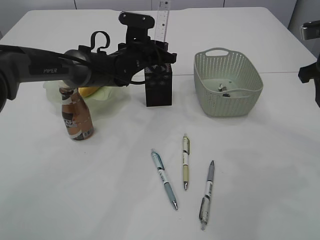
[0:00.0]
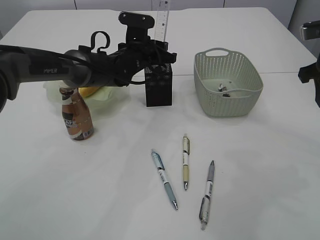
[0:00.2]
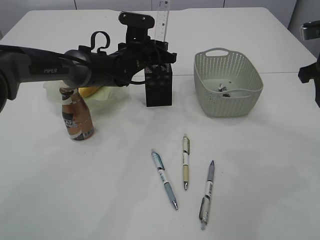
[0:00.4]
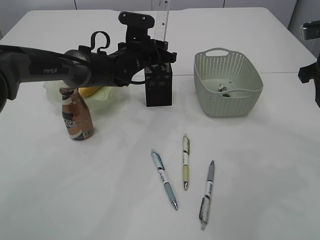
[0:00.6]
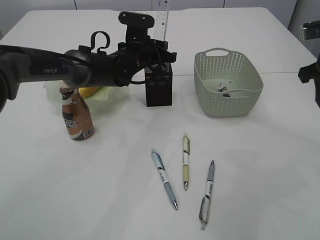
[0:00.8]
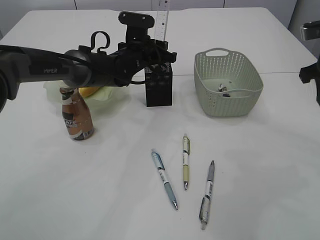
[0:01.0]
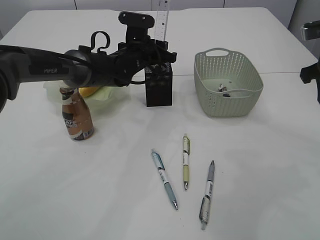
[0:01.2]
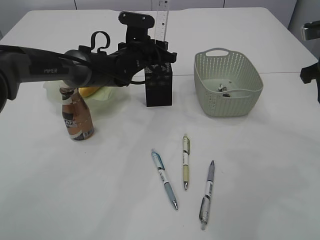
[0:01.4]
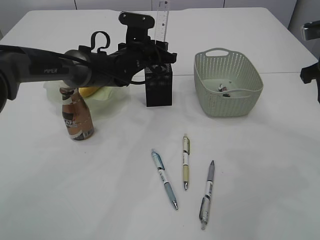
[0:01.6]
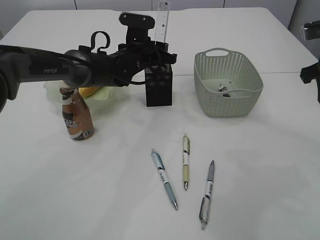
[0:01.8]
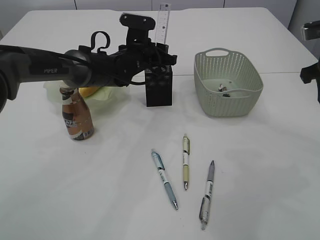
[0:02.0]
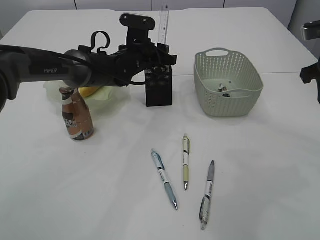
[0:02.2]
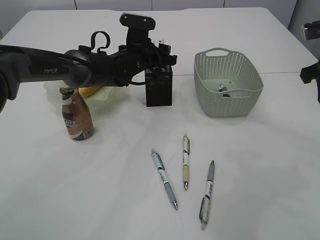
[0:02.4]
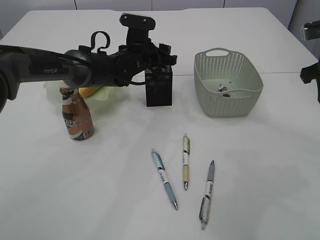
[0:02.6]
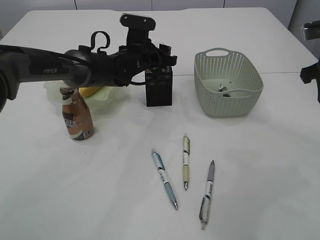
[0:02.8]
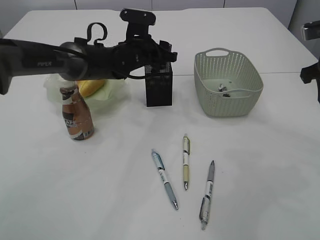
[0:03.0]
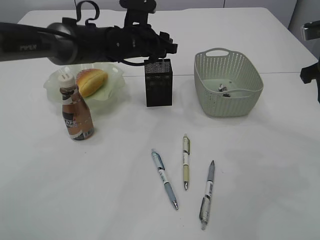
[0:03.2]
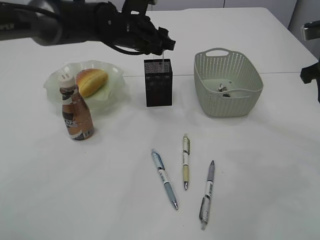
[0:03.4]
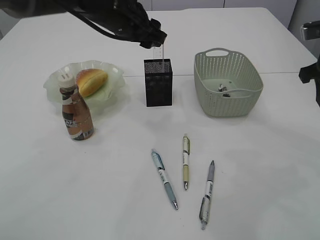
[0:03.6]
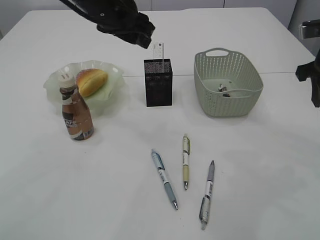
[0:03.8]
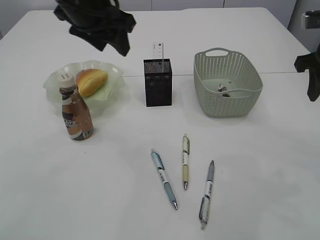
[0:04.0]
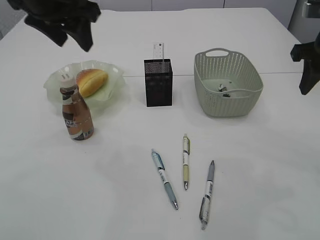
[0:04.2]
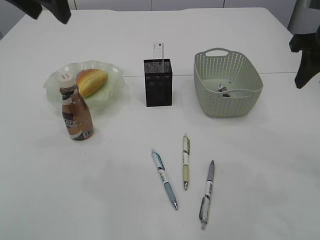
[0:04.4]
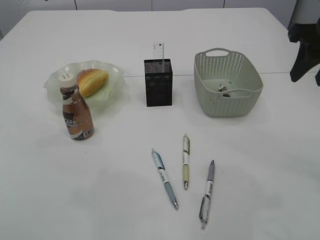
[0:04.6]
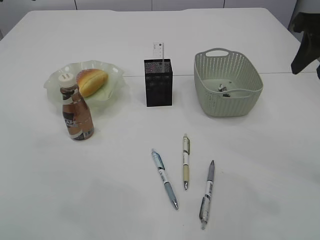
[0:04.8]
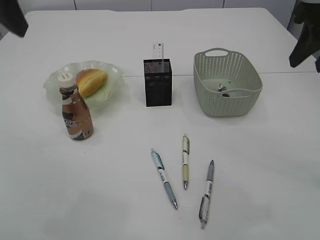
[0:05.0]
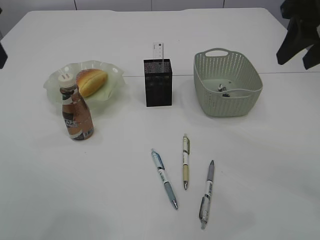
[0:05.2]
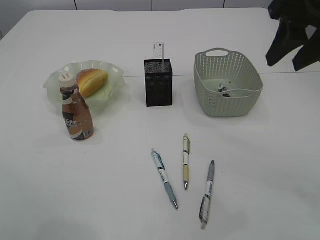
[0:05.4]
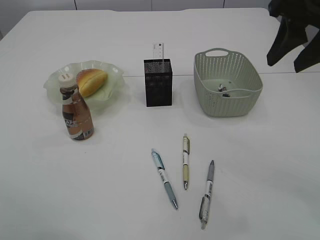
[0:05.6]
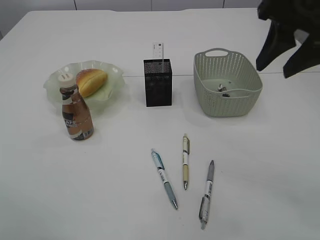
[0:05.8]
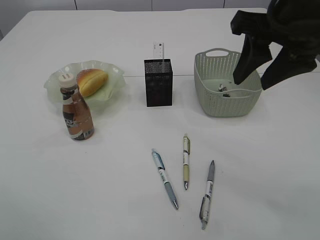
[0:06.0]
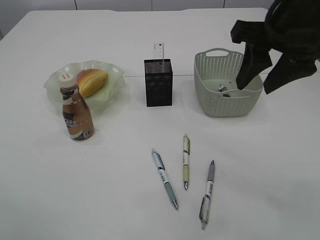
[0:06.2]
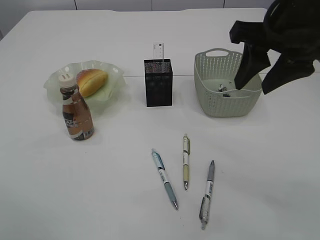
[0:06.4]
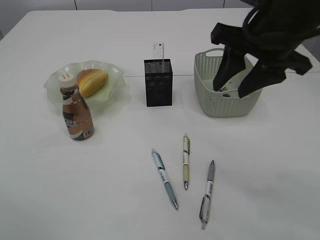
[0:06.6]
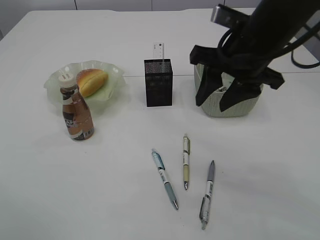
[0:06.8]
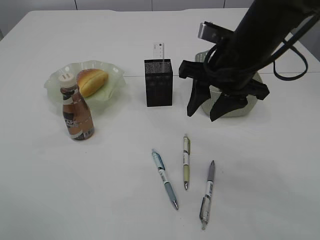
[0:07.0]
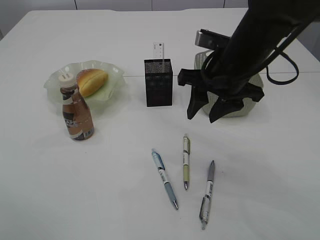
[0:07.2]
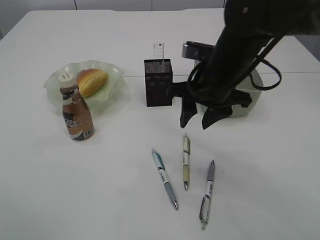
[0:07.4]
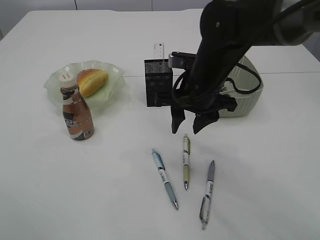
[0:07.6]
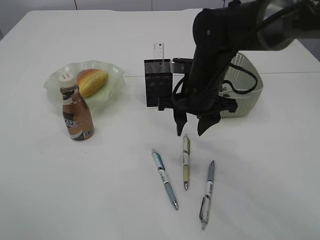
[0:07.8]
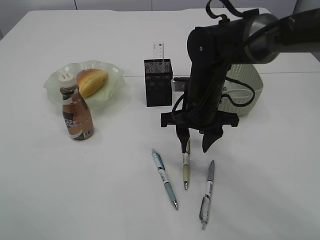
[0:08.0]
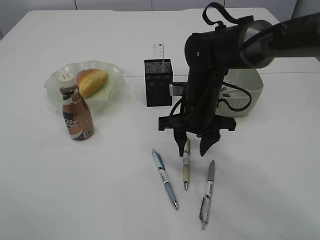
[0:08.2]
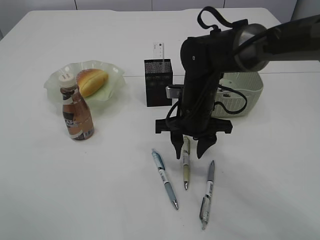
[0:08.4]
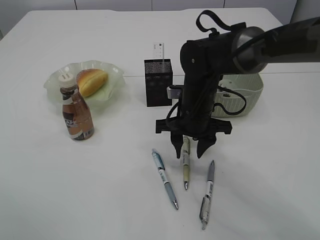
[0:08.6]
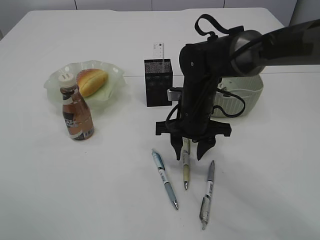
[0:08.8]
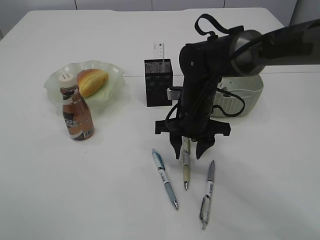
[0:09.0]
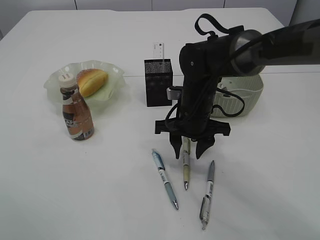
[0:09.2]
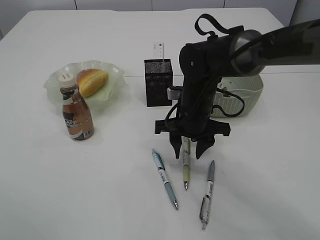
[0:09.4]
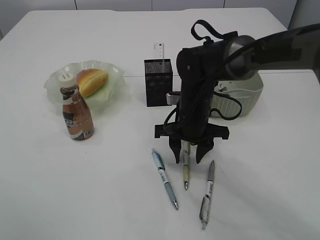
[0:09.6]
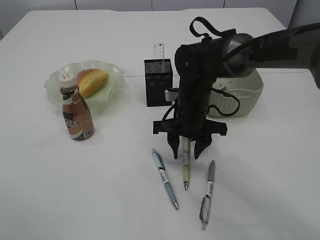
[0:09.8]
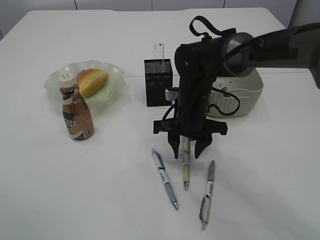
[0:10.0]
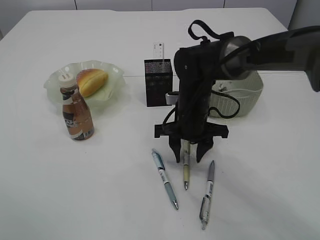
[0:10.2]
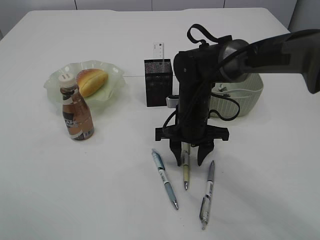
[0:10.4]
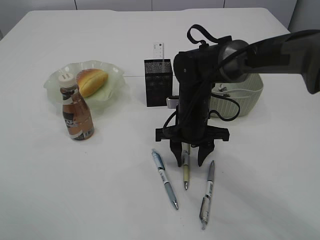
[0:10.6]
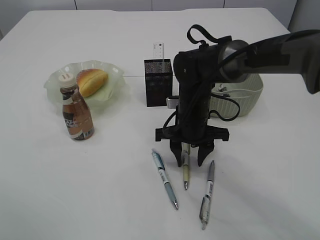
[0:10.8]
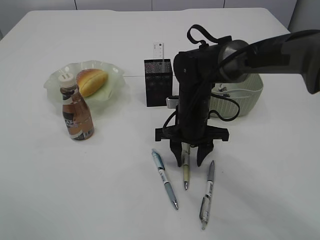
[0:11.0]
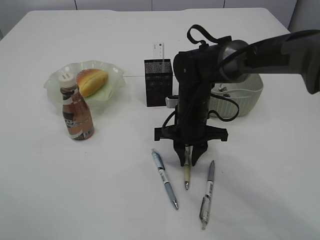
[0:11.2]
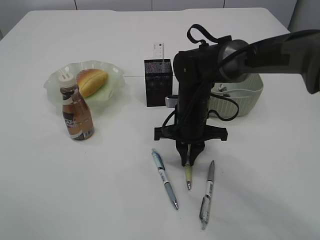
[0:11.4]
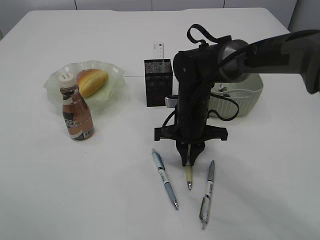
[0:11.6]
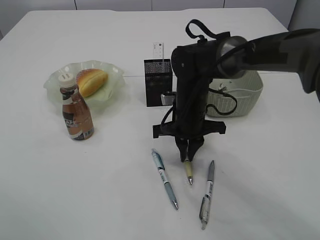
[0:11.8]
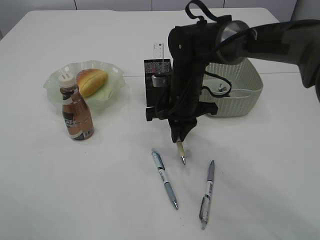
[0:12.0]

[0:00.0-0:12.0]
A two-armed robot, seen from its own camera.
Step, 0:00.0 to 0:03.6: Place the ruler into the pen holder.
0:00.0 to 0:03.0: The two grippers keep their place.
0:03.0 to 0:04.4: The right gripper shifts by some 5 cm. Meanwhile the left gripper shifts about 30 cm upward, backward and to the left.
0:04.4 to 0:06.0: The left gripper moves backward and to the left, roughly 15 cm. The right gripper moves to the left, approximately 10 cm.
0:06.0 to 0:07.6: The right gripper travels downward, to the left and forward by about 20 cm.
0:07.6 to 0:09.0: The right gripper goes about 5 cm downward.
0:09.0 to 0:10.4: The grippers move only a little.
0:10.4 to 0:12.0: The right gripper closes up.

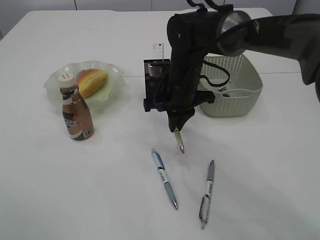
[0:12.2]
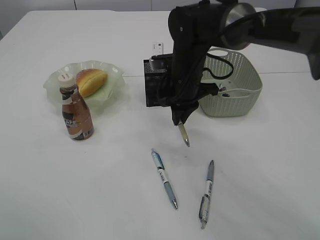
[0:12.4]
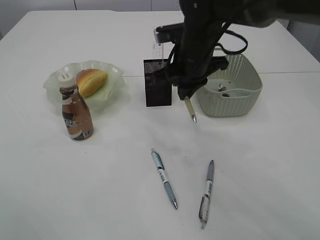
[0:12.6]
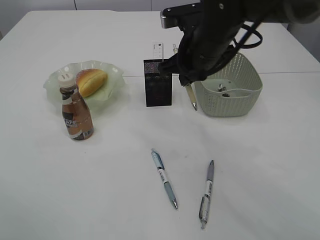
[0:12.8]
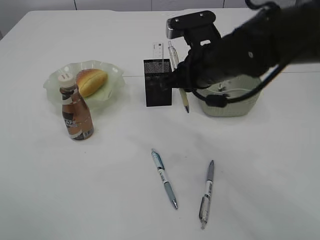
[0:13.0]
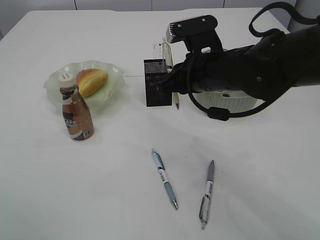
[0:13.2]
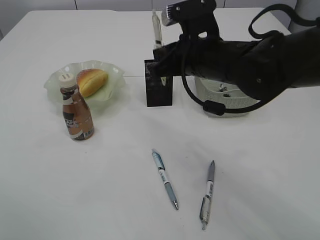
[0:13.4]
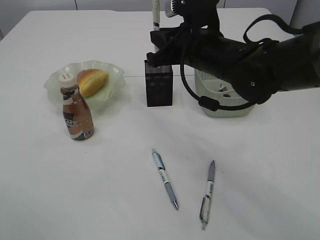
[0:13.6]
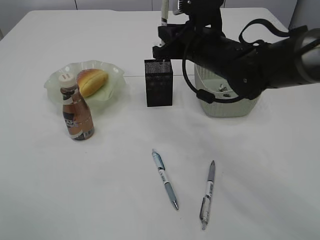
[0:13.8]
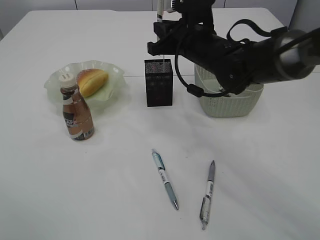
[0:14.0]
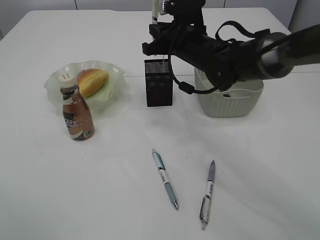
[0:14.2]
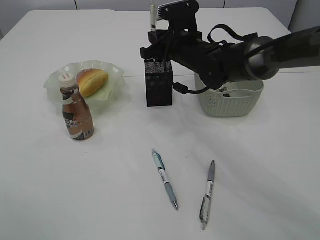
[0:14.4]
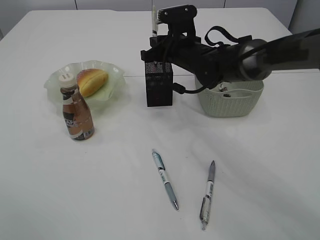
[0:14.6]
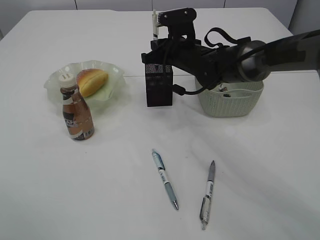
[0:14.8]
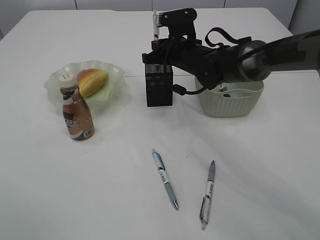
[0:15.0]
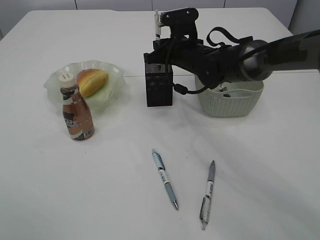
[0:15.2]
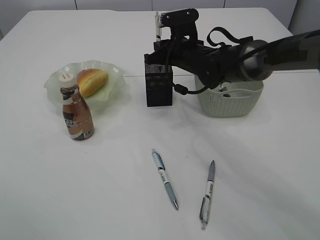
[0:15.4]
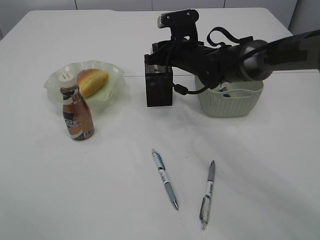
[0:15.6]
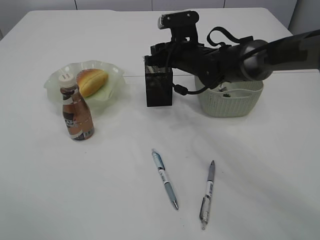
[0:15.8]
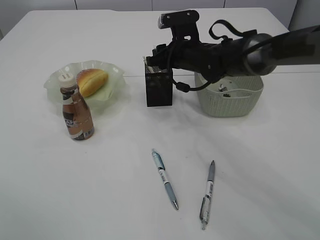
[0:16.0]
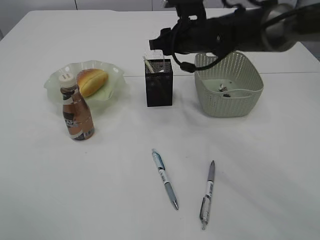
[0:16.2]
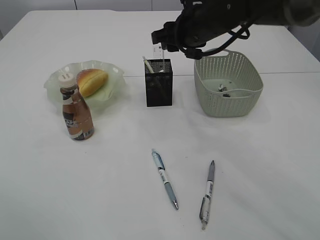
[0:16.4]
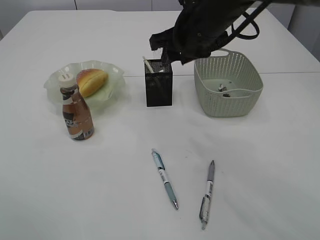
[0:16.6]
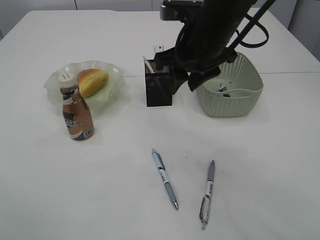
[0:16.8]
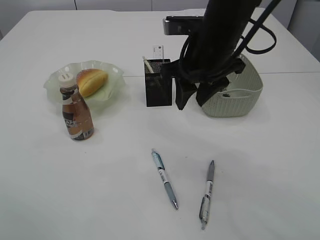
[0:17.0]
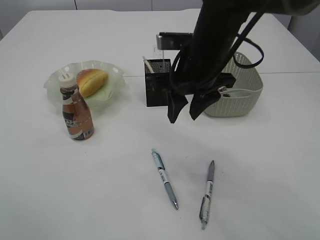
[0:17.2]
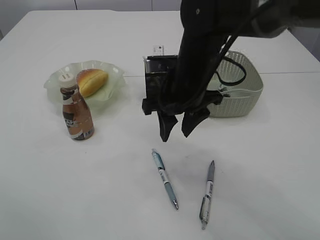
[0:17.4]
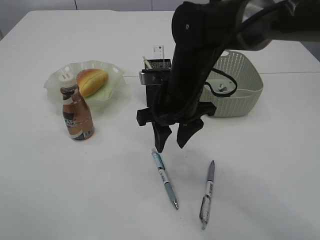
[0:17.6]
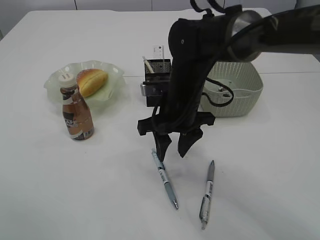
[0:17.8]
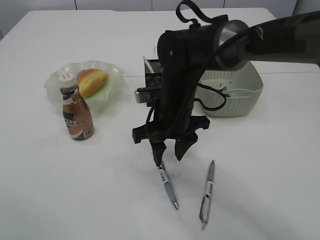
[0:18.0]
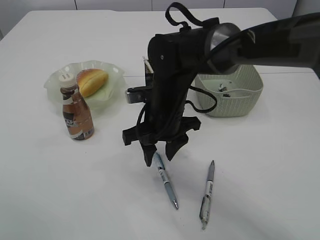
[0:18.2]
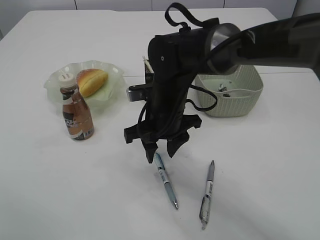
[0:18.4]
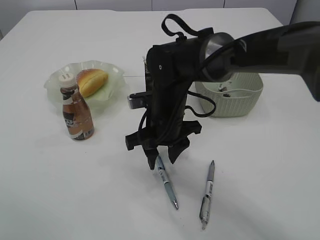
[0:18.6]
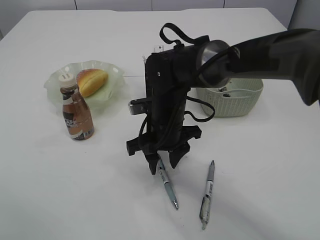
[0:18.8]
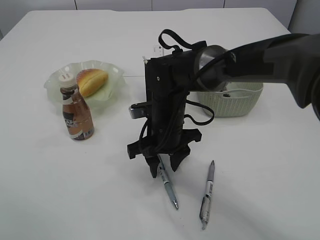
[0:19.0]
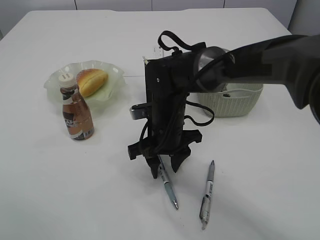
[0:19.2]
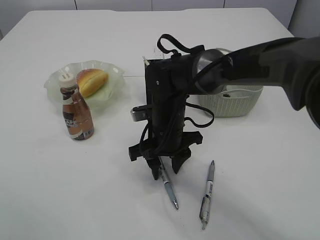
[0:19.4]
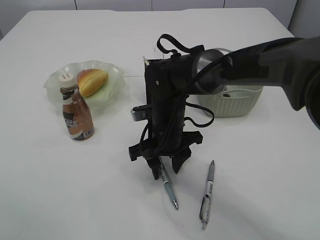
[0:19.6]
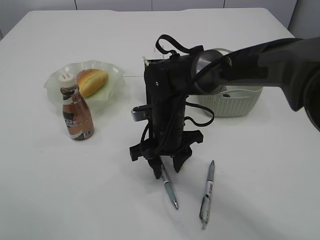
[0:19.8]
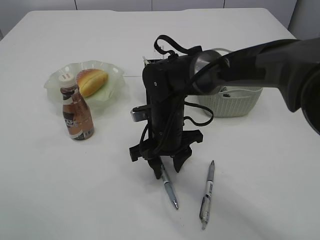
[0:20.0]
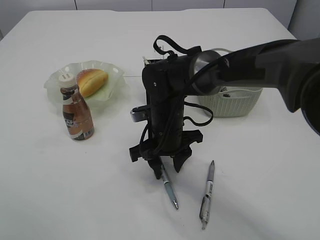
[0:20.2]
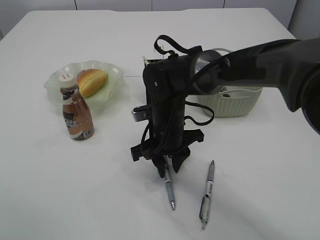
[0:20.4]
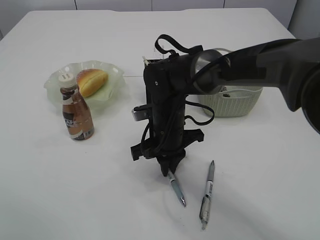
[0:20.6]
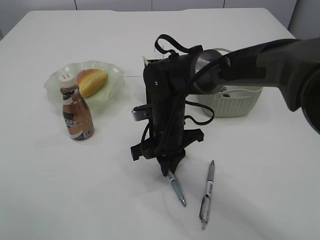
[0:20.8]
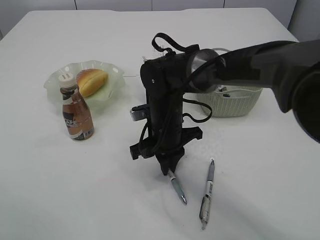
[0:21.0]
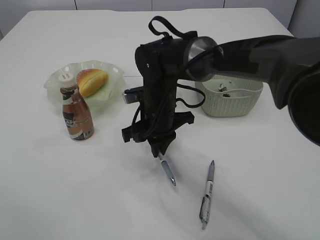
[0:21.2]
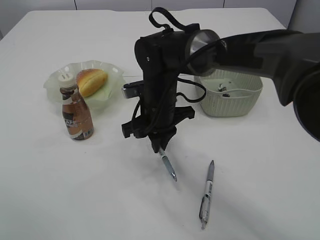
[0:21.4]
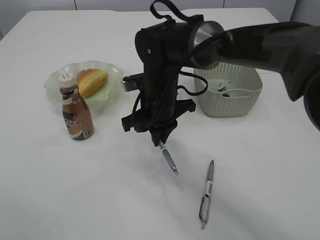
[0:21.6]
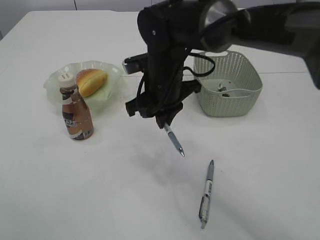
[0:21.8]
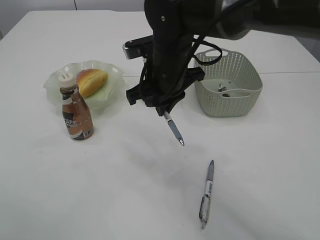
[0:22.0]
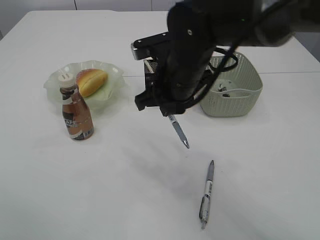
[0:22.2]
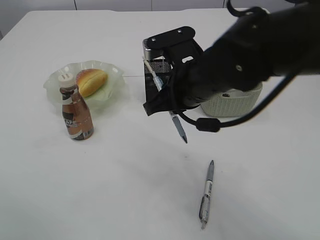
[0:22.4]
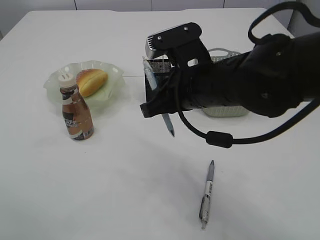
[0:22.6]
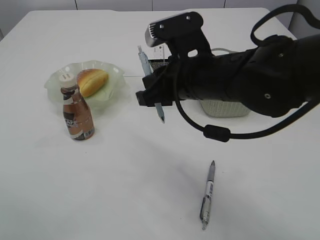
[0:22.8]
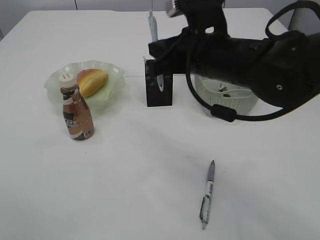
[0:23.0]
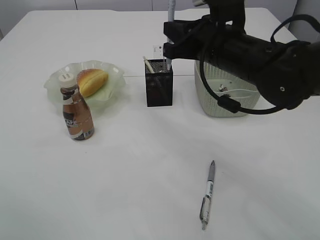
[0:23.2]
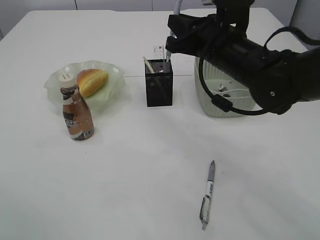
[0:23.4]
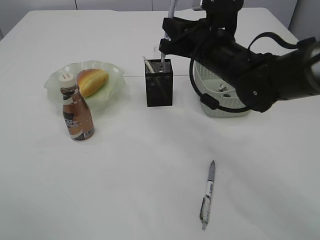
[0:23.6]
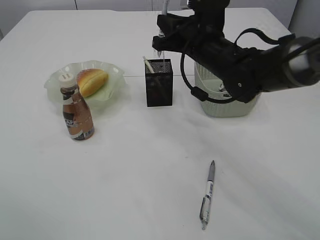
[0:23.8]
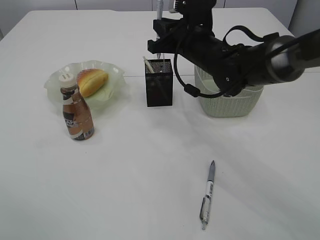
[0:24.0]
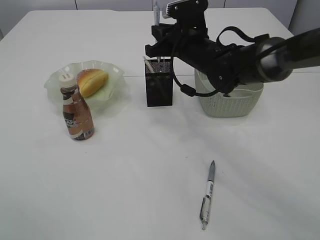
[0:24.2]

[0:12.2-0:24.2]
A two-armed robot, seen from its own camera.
Step, 0:12.2 to 0:16.2: Place the pen into the pen holder.
Step, 0:16.4 to 0:21.8: Pick up the pen with right arm.
0:12.2 to 0:13.8: The right gripper heads upward, covering approximately 5 cm.
0:13.8 to 0:15.2: The right gripper moves forward, approximately 10 cm.
0:15.2 to 0:16.6: The right gripper moves upward and backward, some 15 cm, and opens its fingers.
0:16.6 to 0:18.2: The right gripper goes roughly 15 cm downward and to the left.
0:18.2 to 0:19.8: The grippers move only a little.
0:19.8 to 0:21.2: The right gripper closes.
0:21.2 to 0:22.6: The right gripper heads upward, backward and to the right, covering about 15 cm.
0:22.6 to 0:24.2: The right gripper is displaced forward by some 15 cm.
